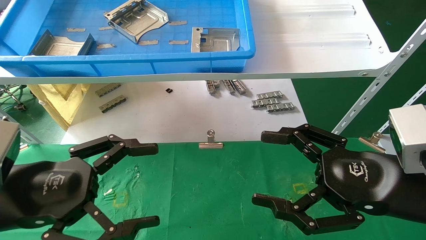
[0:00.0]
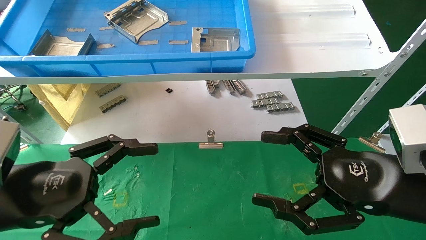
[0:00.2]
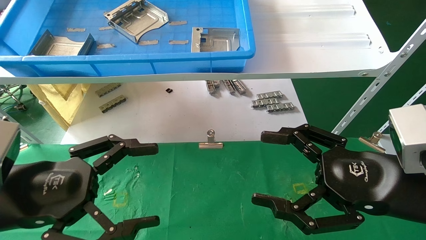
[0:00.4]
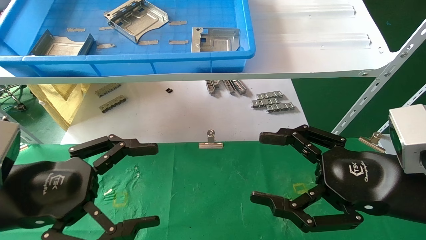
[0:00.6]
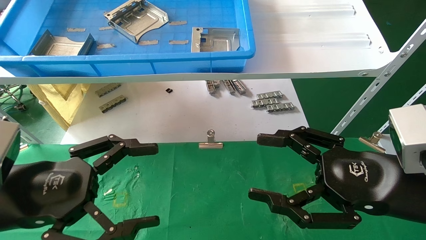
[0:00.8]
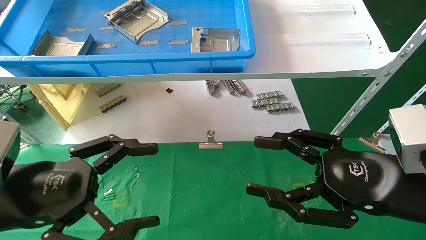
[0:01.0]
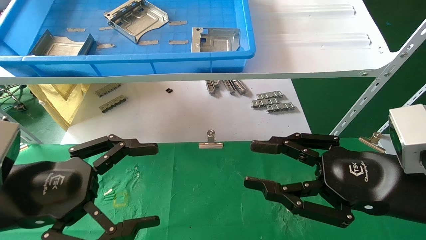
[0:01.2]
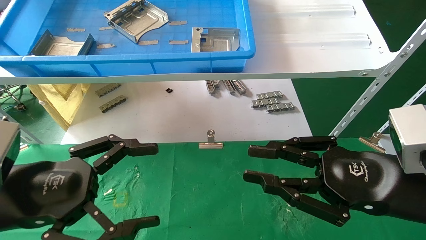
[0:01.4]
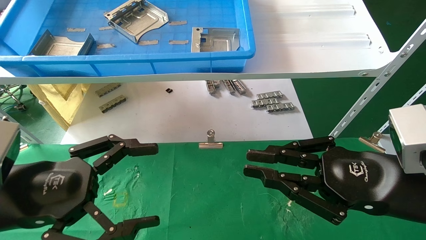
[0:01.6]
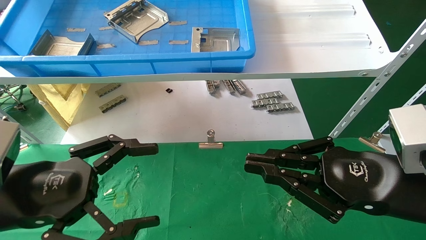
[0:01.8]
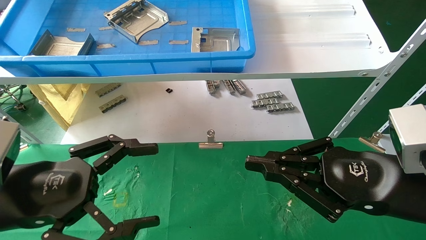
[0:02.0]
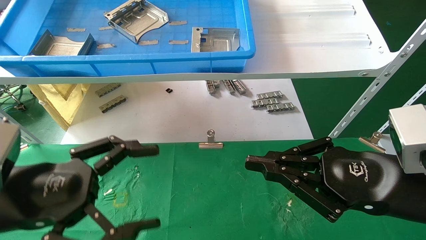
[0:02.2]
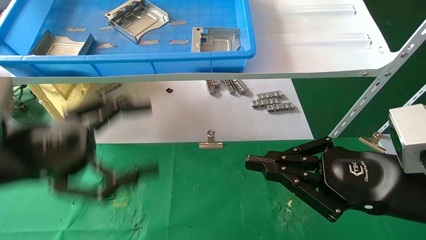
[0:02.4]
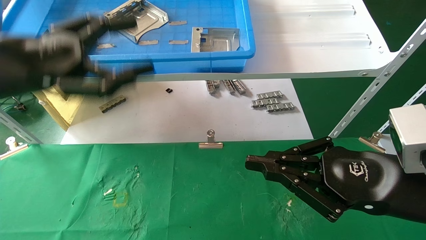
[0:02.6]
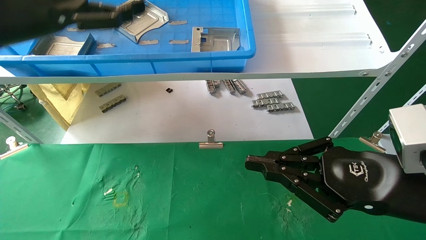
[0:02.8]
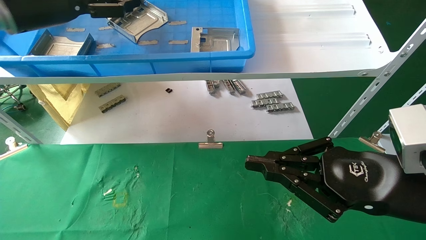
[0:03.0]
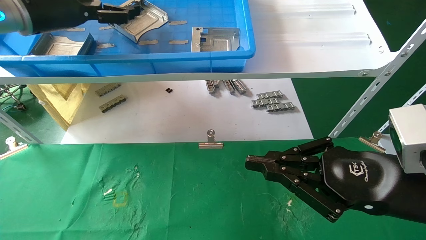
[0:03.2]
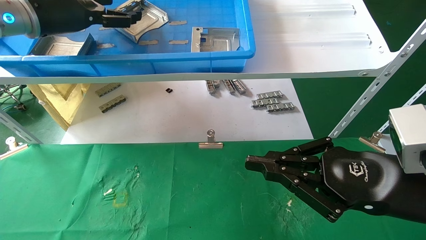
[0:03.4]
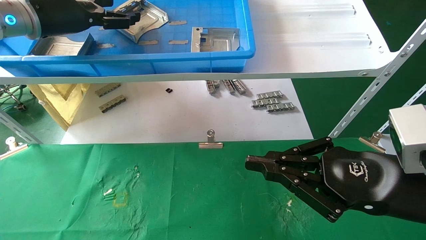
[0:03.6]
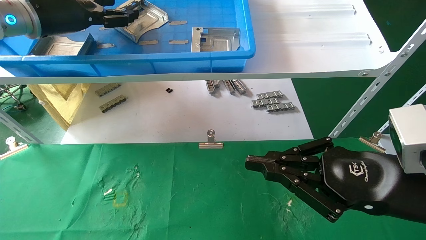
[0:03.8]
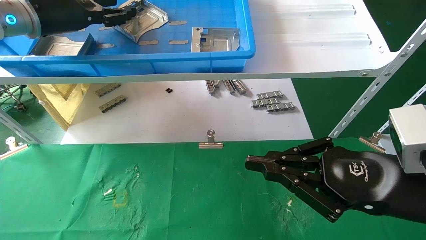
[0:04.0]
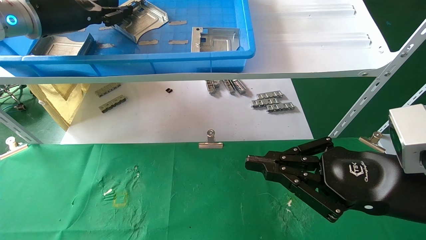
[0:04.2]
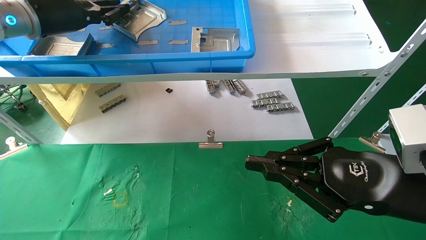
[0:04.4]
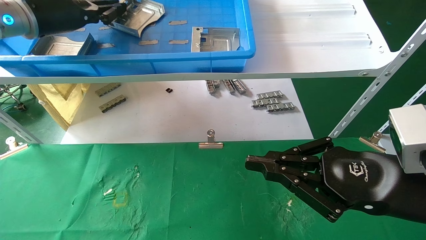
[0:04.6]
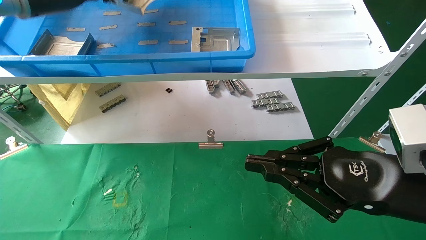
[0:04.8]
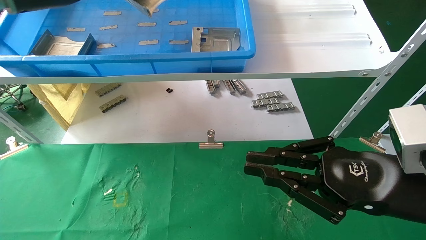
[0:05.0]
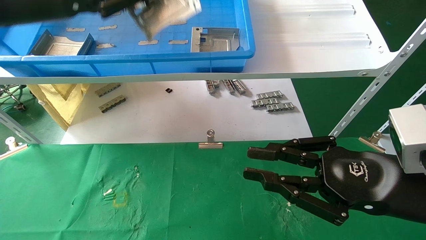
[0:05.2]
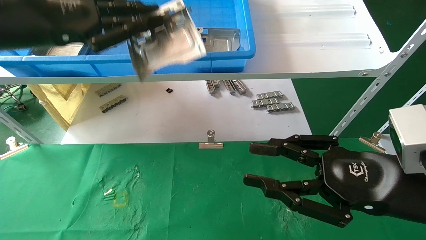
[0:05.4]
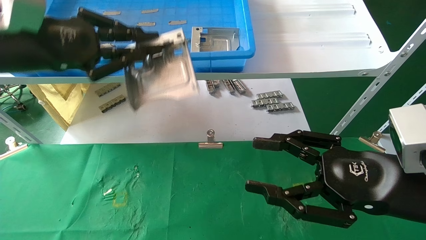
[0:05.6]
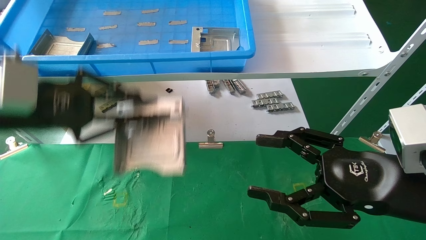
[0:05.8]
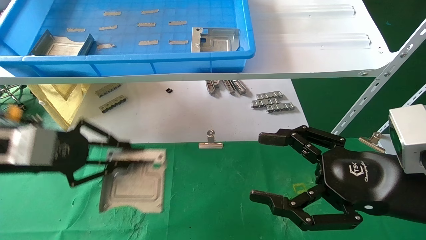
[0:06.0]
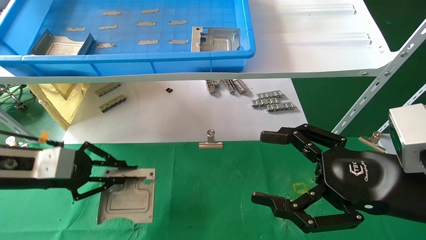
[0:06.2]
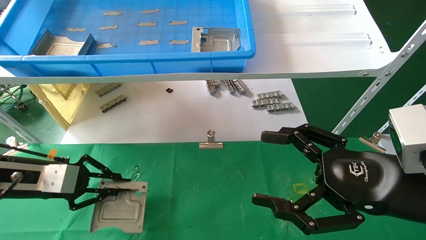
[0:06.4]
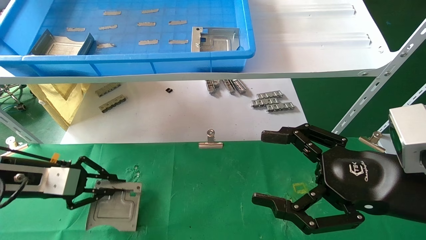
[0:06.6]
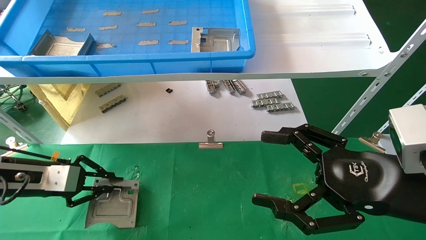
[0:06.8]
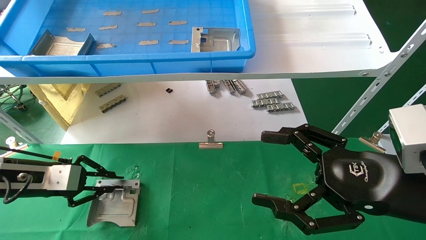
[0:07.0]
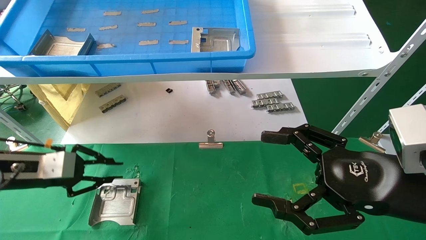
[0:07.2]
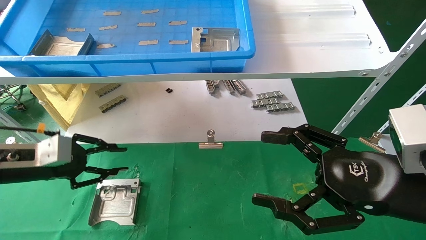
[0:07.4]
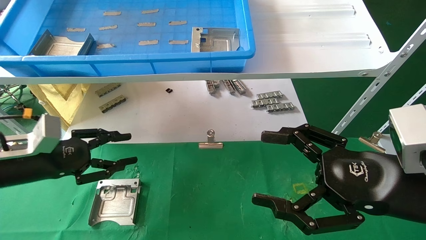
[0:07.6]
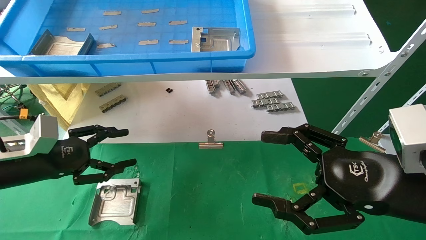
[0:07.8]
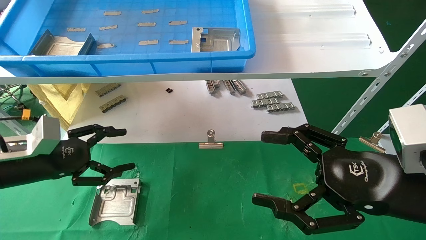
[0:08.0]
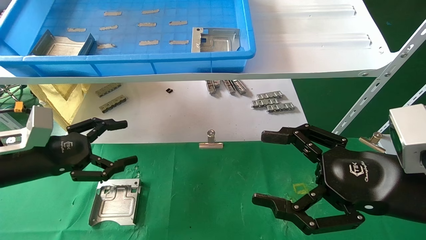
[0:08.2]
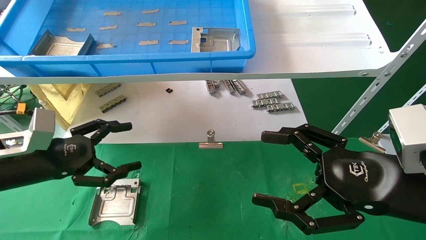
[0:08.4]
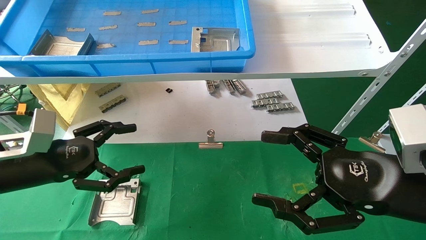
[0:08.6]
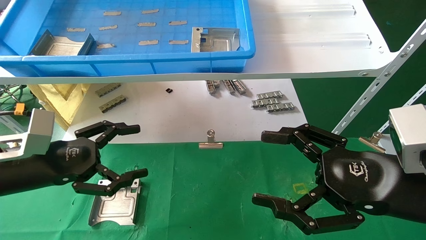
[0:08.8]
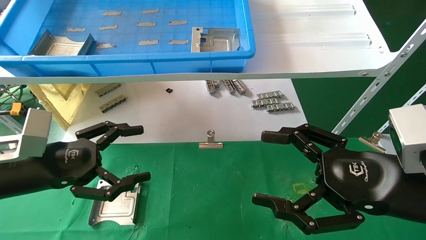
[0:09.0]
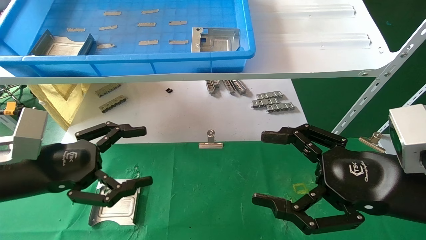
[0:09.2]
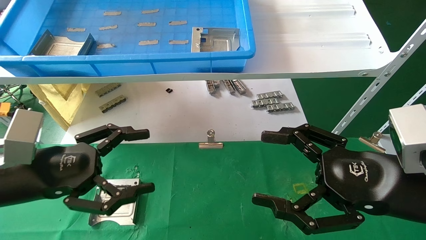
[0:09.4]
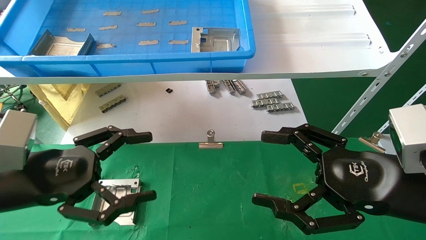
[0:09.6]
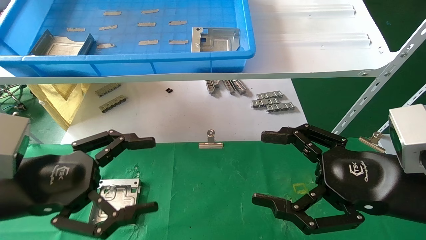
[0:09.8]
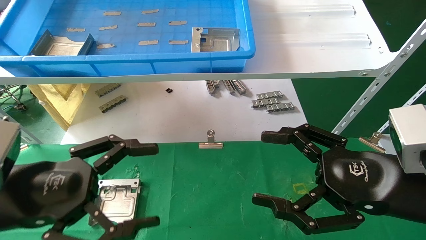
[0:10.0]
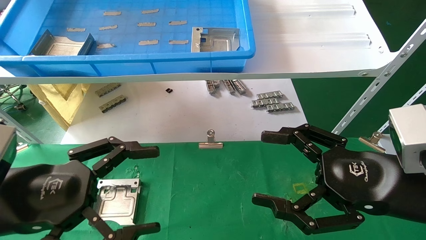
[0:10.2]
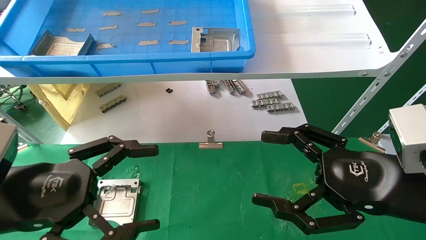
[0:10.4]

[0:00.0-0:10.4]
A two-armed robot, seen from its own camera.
Task of the whole recording: use the mechanical arm to pick up the parts and place them on the table.
Step, 0:02.4 to 0:04.4: Pick up the hard drive bracket from the feeding area.
Step, 0:04.6 to 0:07.4: Place the hard drive bracket into the box.
0:00.0 to 0:01.4: The right gripper closes up.
0:01.4 to 0:03.0: The left gripper shifts some 30 cm upward and forward. Meanwhile the right gripper closes its fingers.
0:03.0 to 0:04.4: The left gripper closes.
0:04.4 to 0:06.0: The left gripper heads downward and backward, covering roughly 20 cm, while the right gripper opens up.
0:06.0 to 0:07.4: The left gripper moves downward, roughly 5 cm.
0:07.4 to 0:09.0: The left gripper is displaced to the right and backward by some 10 cm, and opens up.
0:09.0 to 0:10.4: The left gripper travels backward by some 10 cm.
